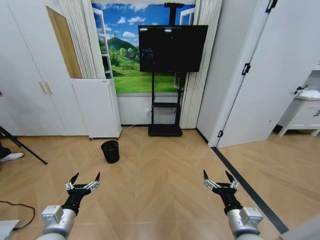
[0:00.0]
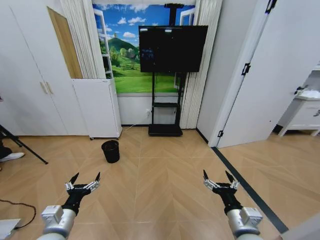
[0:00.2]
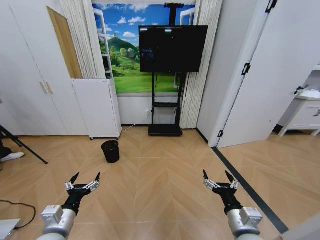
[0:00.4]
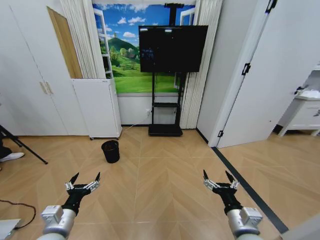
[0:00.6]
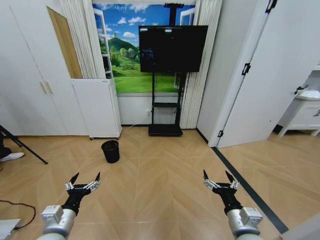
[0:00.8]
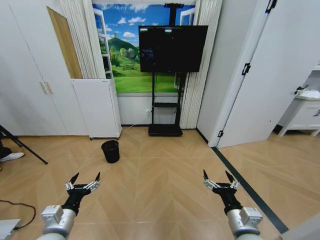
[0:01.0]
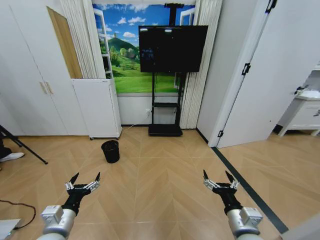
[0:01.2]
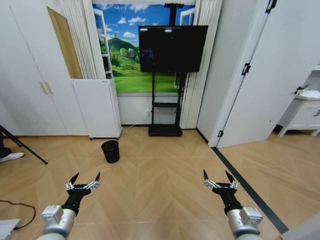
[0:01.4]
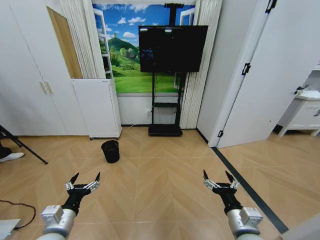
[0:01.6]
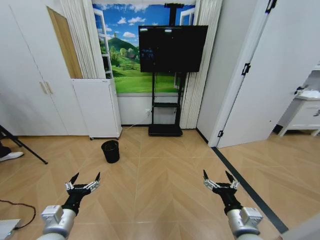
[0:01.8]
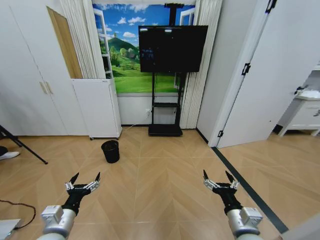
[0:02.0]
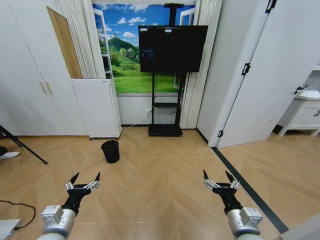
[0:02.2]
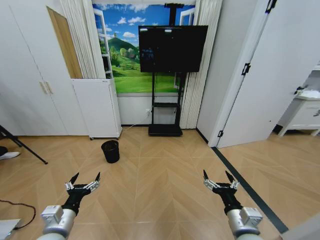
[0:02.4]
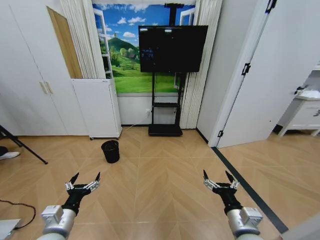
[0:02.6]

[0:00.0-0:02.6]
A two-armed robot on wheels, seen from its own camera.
Task of the whole recording: Pick up the trash bin and place the garbage on the floor into it.
0:00.0 to 0:02.6: Neither gripper changes place.
